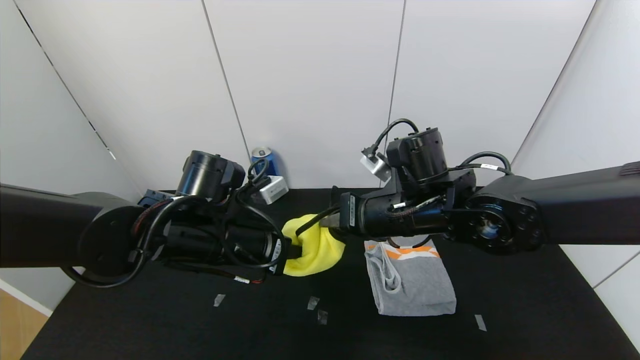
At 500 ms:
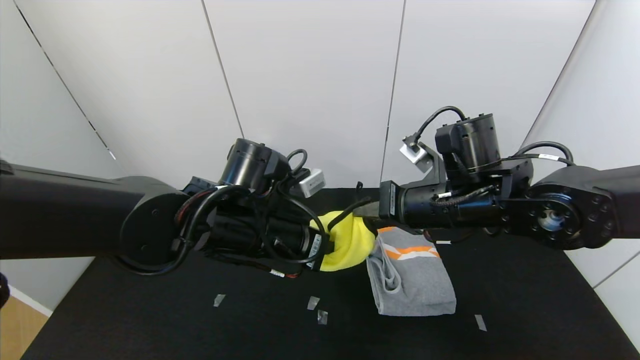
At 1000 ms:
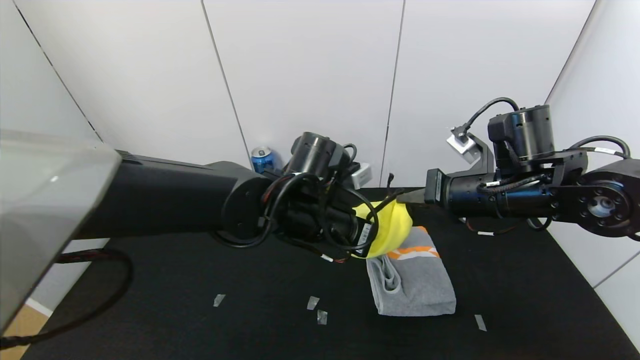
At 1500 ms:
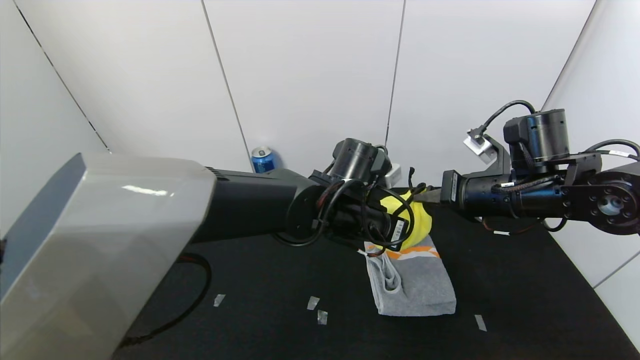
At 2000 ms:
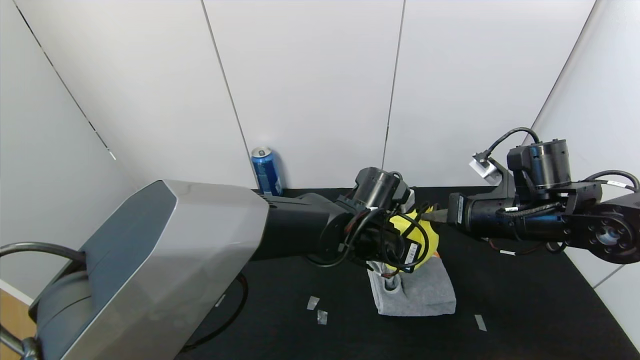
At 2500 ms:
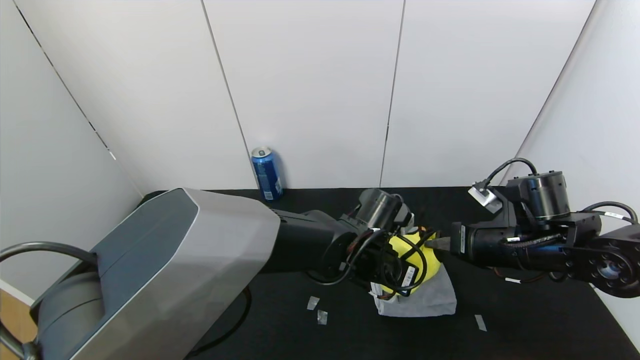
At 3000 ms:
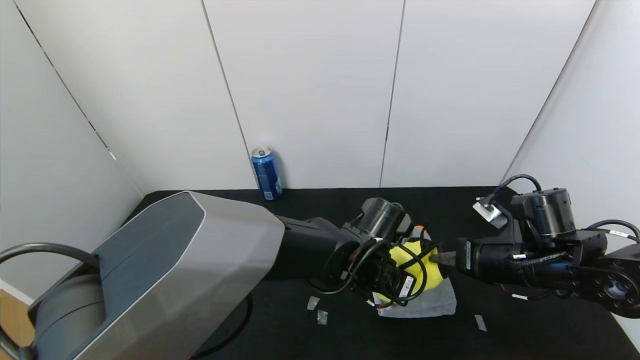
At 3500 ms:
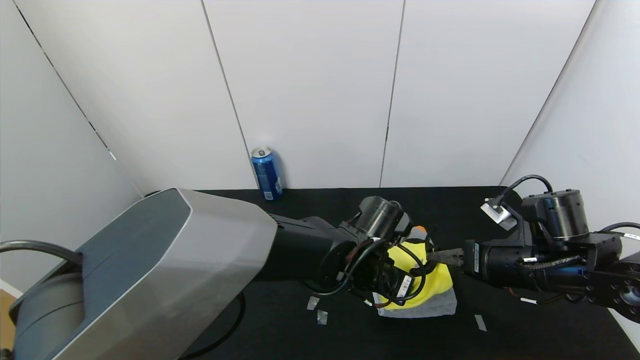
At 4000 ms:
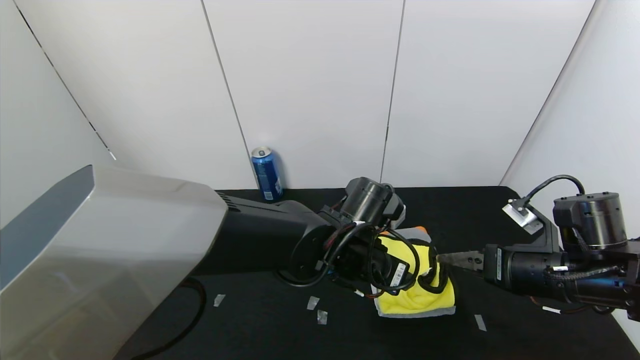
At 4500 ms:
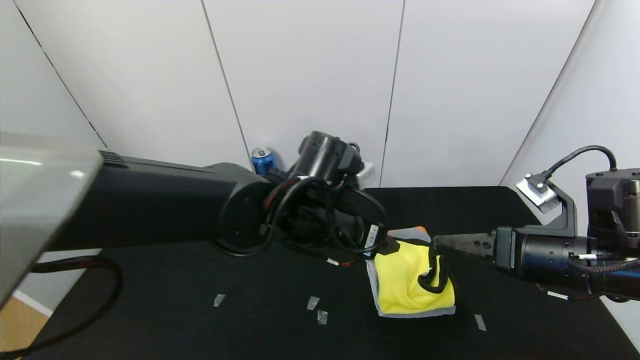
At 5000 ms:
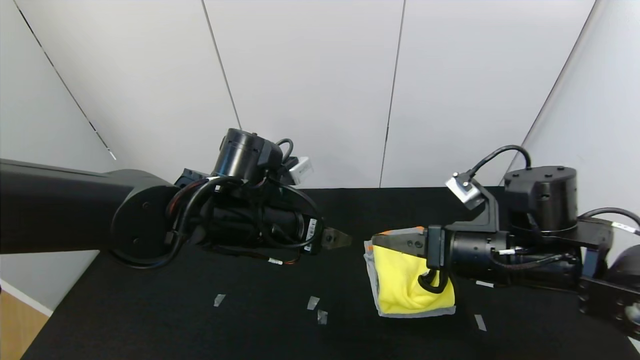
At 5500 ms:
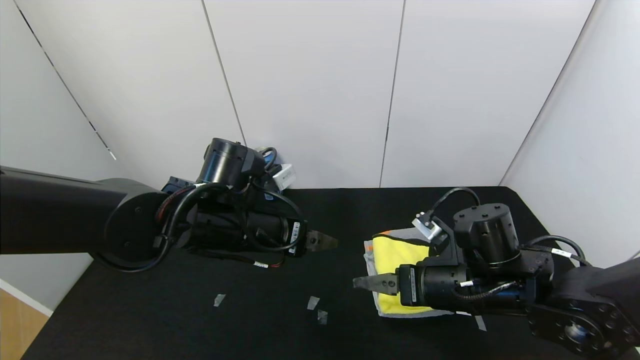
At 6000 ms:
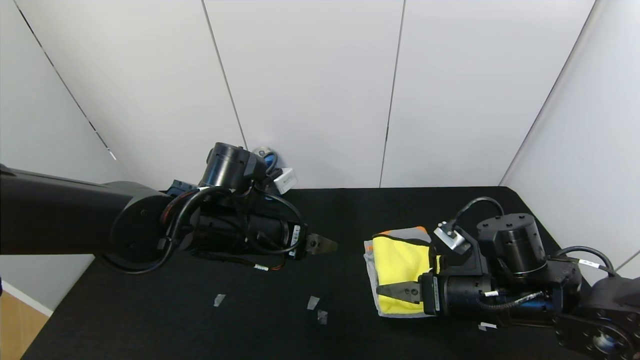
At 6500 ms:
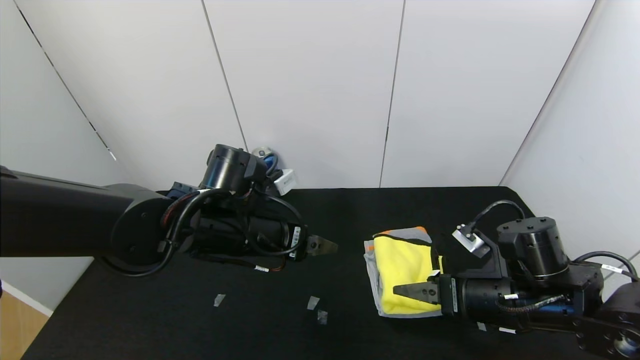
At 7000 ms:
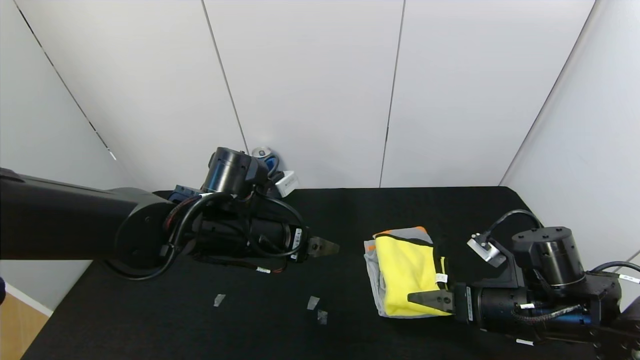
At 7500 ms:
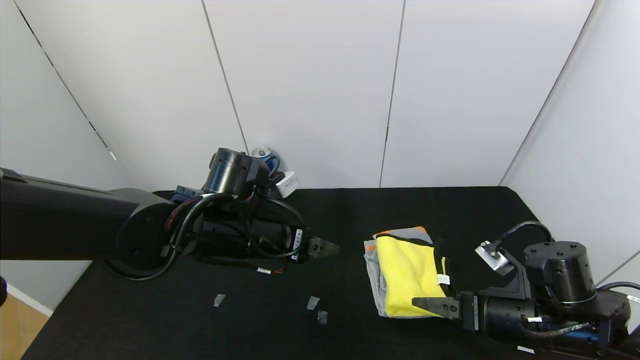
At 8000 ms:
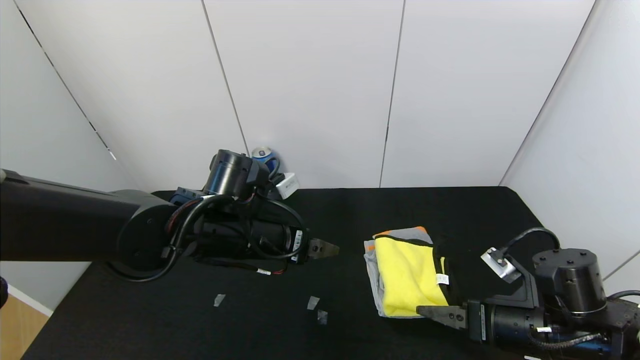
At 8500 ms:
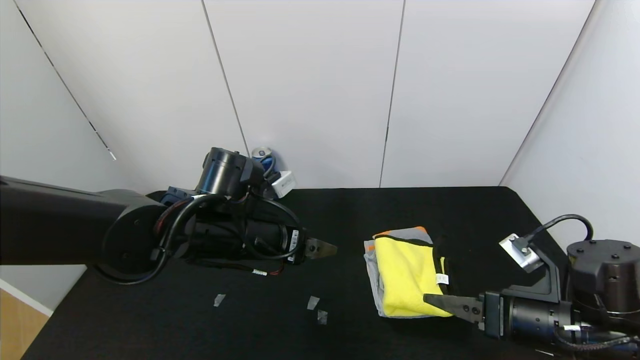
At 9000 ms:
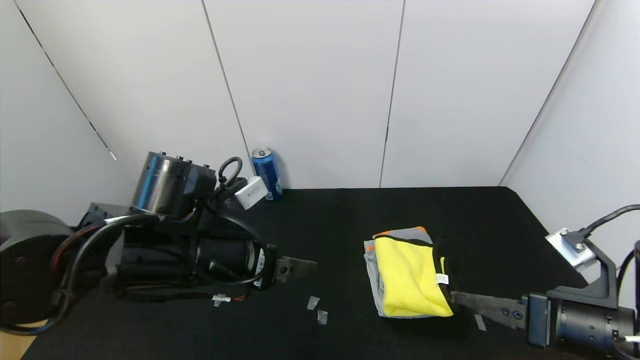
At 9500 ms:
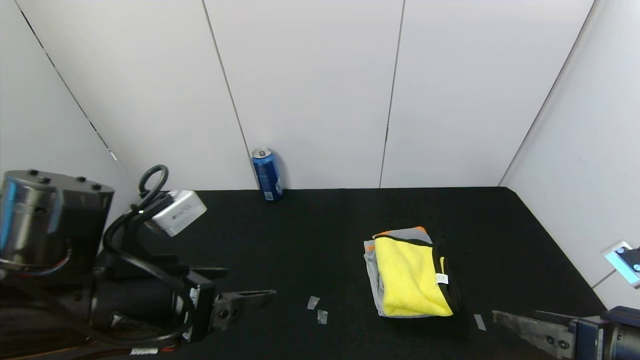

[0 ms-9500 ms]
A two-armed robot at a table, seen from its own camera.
Task of the whole recording: Use the gripper to fold the yellow towel and grey towel in half twice,then put the yellow towel on the grey towel.
Step, 0 ms to 4000 ms: Place the yellow towel on the gray towel with the left gripper.
Step, 0 ms to 4000 ms: Place the yellow towel on the gray towel with the right gripper.
Step, 4500 ms to 8000 ms: Press the yellow towel with the right gripper.
0 ms to 2000 ms: The two grippers go some 15 cm to the right.
2000 ms to 4000 ms: The right gripper moves backward, about 5 cm, and opens, while the left gripper opens up.
4000 ms to 5500 ms: The grippers both shift to the left by approximately 15 cm.
5500 ms to 7500 ms: The right gripper goes approximately 10 cm to the right.
7500 ms to 9500 ms: The right gripper goes about 10 cm backward and upward. The left gripper is displaced backward and to the left by roughly 15 cm.

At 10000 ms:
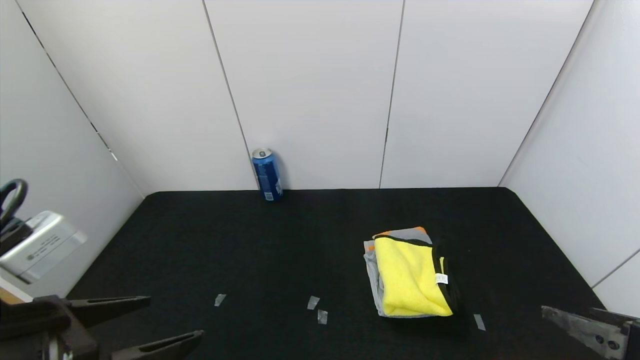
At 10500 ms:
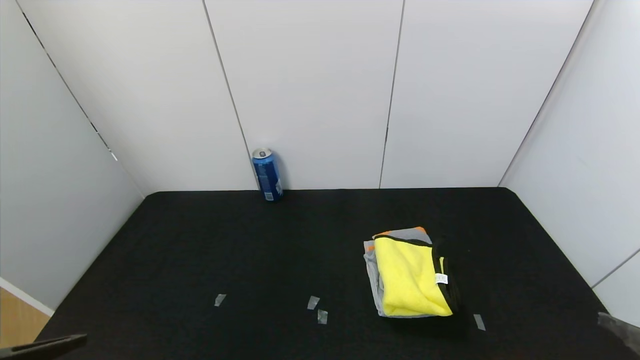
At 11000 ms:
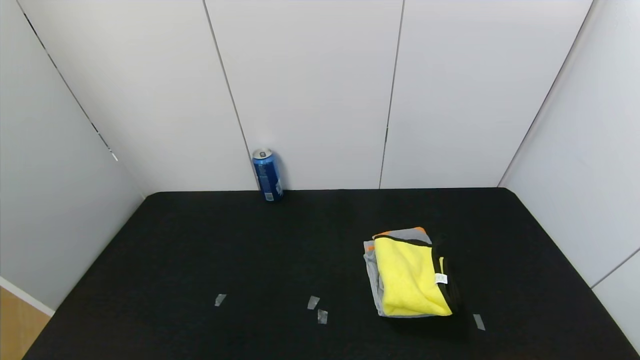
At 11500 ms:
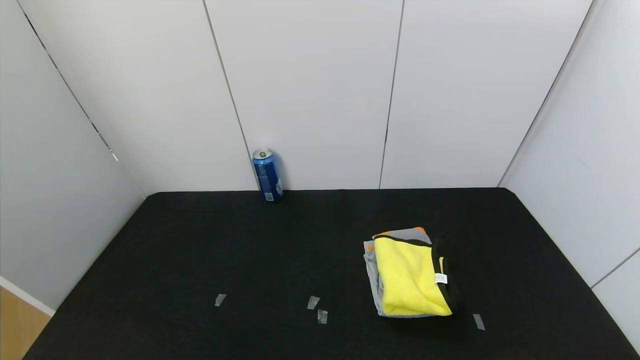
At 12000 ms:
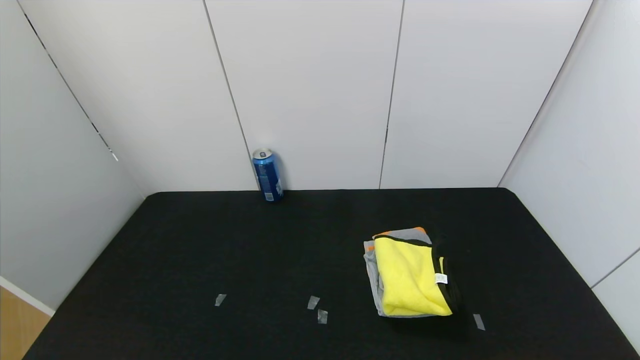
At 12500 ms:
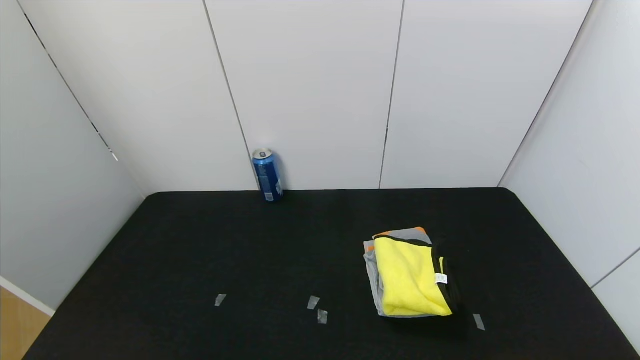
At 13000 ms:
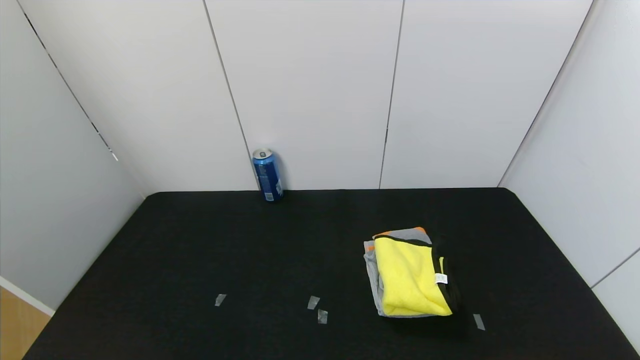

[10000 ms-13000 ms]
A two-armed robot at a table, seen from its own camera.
Task of the whole recording: Use the gripper to fold the yellow towel and grey towel in half twice,then put the yellow towel on the grey towel.
10000 ms to 11500 ms: The left gripper travels backward and downward by some 15 cm; the right gripper moves backward, roughly 15 cm.
